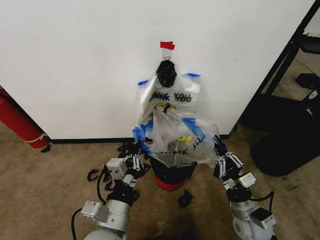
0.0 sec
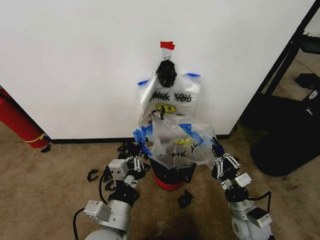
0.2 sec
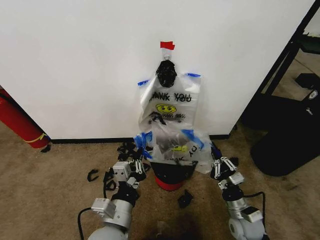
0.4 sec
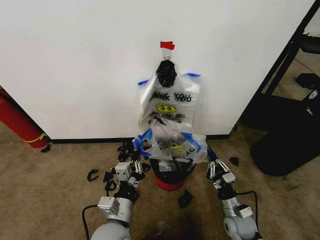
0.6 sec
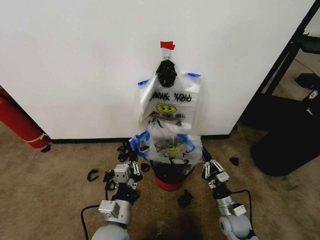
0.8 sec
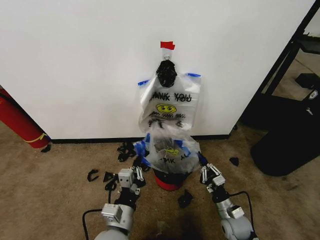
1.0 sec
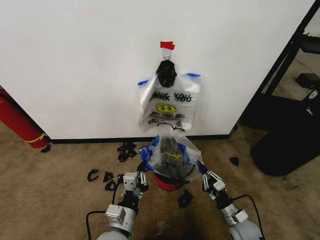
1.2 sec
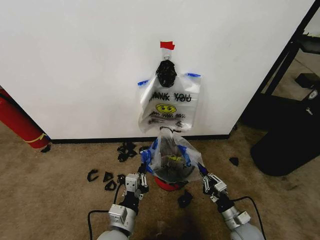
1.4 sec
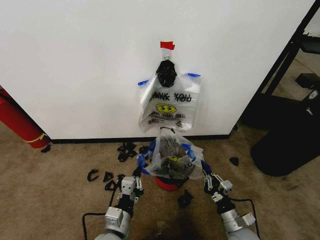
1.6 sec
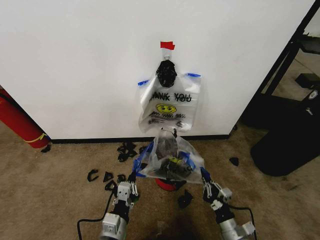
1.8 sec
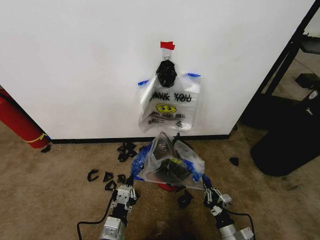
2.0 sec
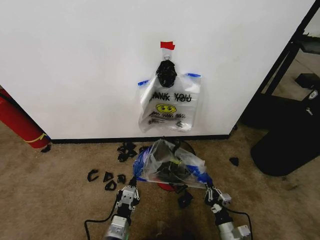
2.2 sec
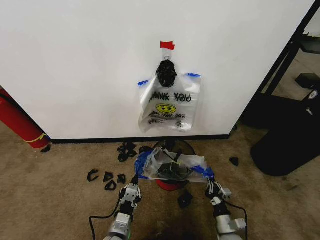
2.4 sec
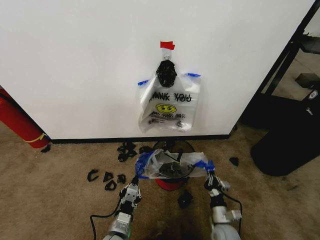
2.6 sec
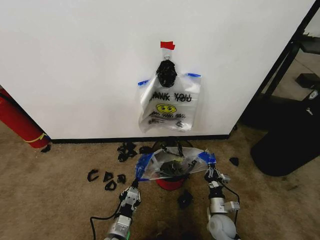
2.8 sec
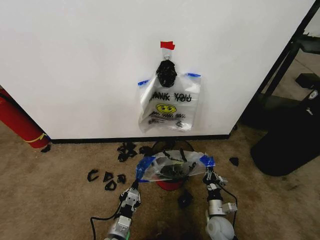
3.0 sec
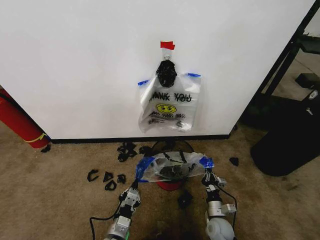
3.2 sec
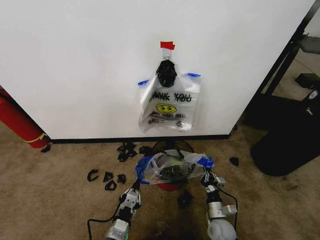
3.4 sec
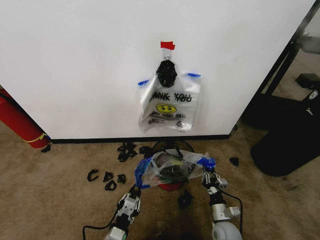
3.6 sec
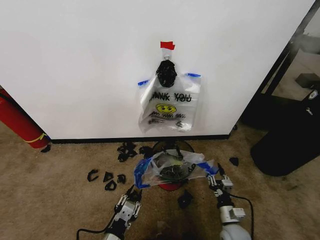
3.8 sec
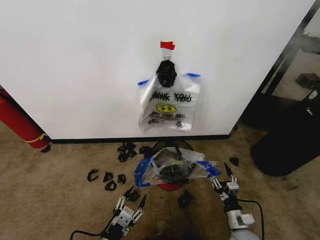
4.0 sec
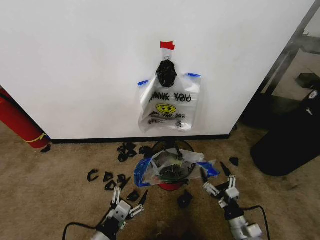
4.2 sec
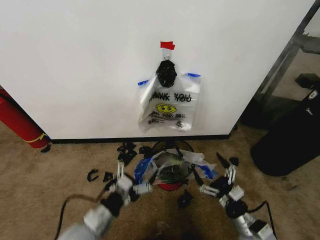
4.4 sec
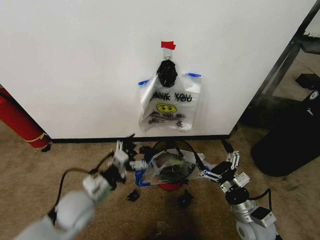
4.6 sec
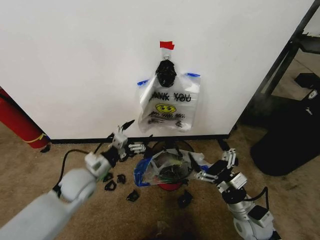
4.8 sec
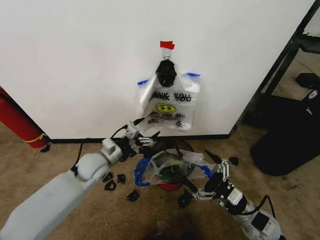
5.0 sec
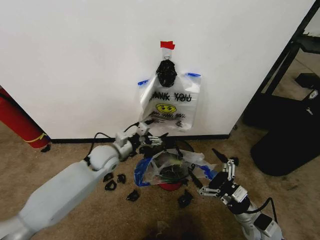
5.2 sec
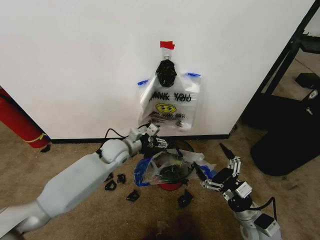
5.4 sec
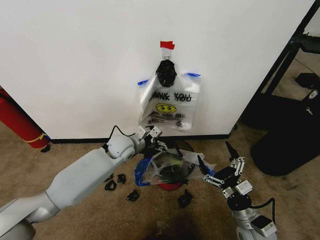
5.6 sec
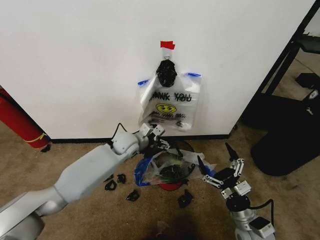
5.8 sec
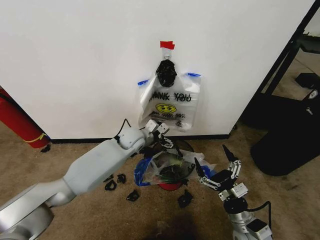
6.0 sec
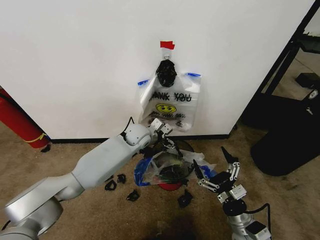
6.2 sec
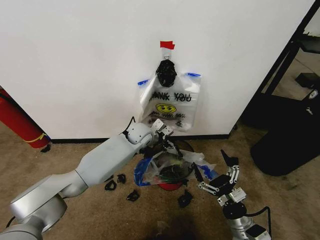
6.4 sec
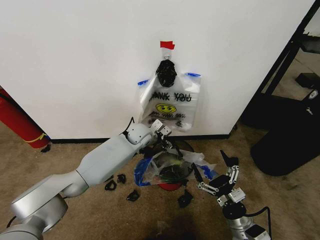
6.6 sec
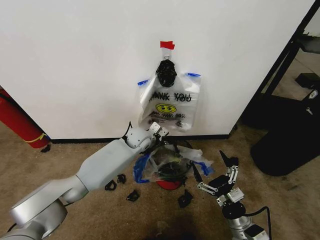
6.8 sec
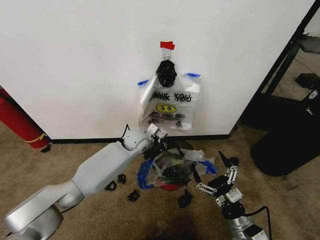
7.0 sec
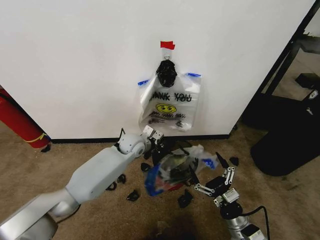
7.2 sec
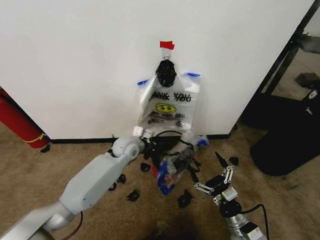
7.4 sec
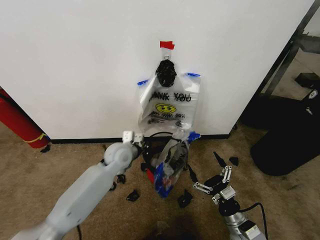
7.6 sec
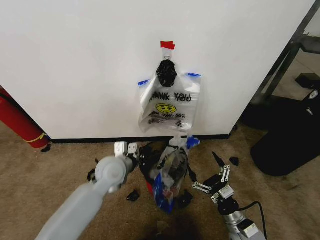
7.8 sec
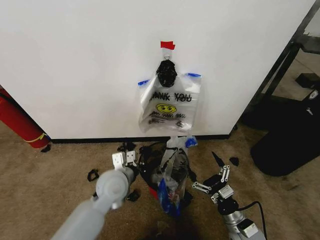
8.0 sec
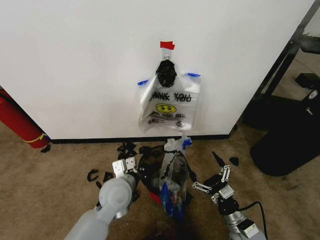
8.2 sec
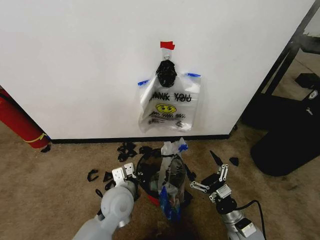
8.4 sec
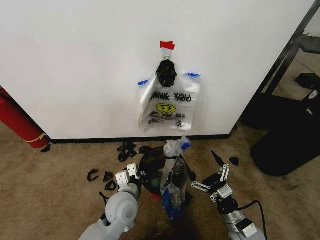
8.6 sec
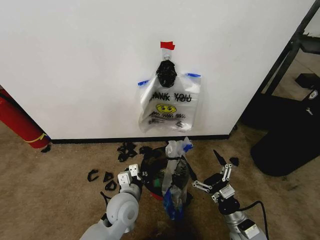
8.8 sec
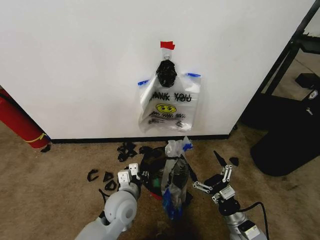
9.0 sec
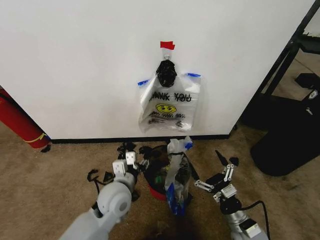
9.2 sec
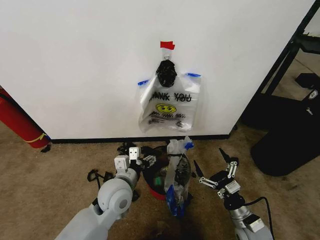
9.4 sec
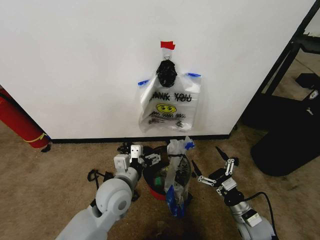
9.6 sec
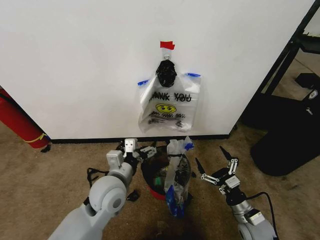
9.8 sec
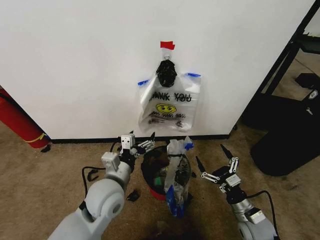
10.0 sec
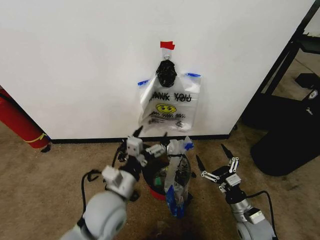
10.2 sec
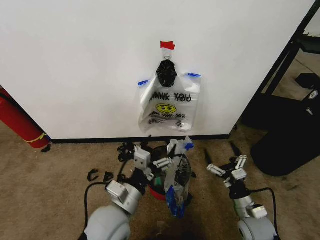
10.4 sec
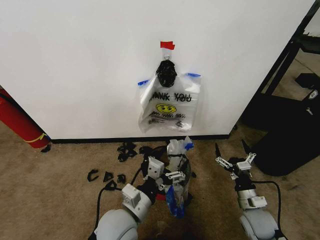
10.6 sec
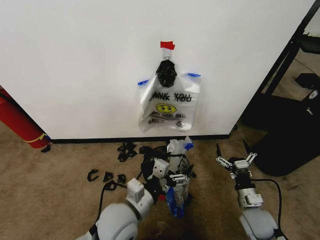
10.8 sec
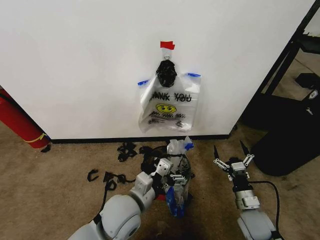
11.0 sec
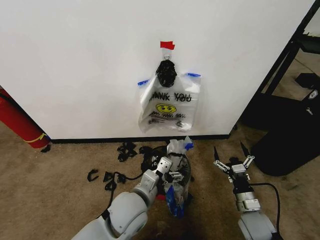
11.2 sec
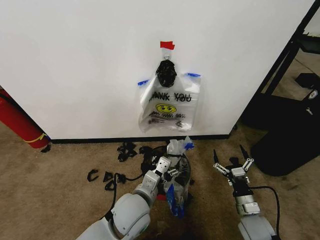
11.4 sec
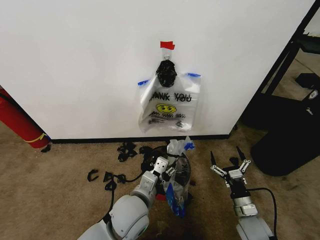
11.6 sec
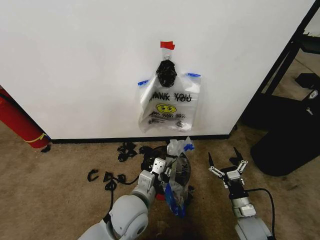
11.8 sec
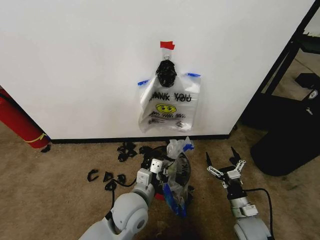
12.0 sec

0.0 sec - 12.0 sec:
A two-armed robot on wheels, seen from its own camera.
Task of the whole recording: Pick up the garbage bag from the wall and place it over the trash bin.
0.0 sec - 1.6 sec: The grippers both shift downward by approximately 10 cm.
1.6 sec - 3.0 sec: The right gripper travels downward and forward by roughly 10 cm; the left gripper shifts roughly 10 cm downward.
3.0 sec - 4.4 sec: The right gripper heads upward, backward and to the right, covering about 15 cm, and opens up; the left gripper shifts approximately 15 cm upward and to the left, and opens.
4.4 sec - 6.0 sec: The left gripper travels forward by some 35 cm.
6.0 sec - 7.6 sec: The left gripper heads backward, covering about 10 cm, and closes.
7.6 sec - 9.0 sec: The left gripper goes some 15 cm backward, and opens its fingers.
9.0 sec - 10.4 sec: The left gripper goes some 10 cm backward and upward, and opens up.
10.4 sec - 12.0 sec: The left gripper moves about 5 cm, and closes up.

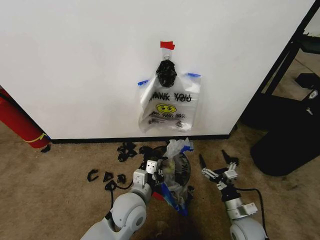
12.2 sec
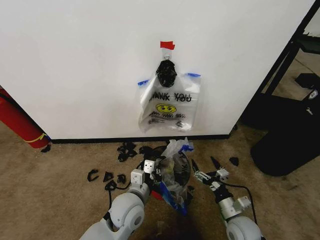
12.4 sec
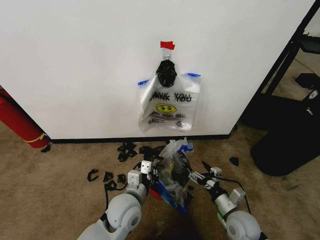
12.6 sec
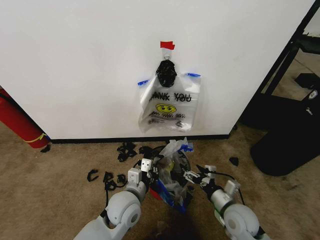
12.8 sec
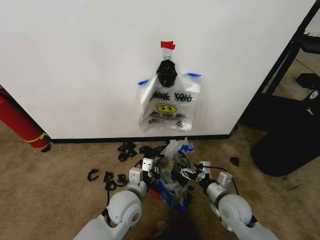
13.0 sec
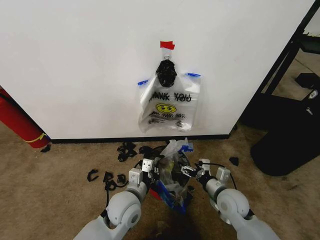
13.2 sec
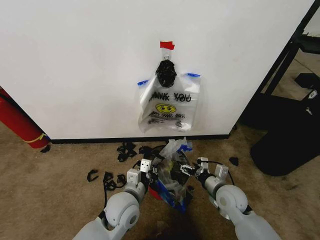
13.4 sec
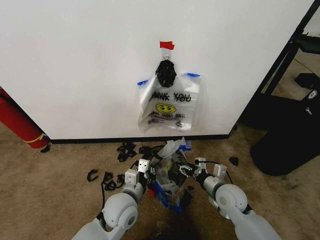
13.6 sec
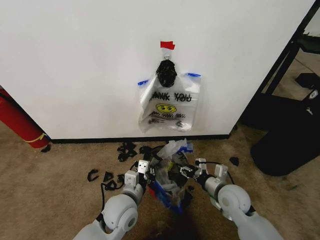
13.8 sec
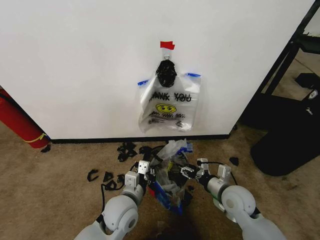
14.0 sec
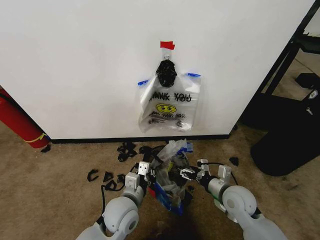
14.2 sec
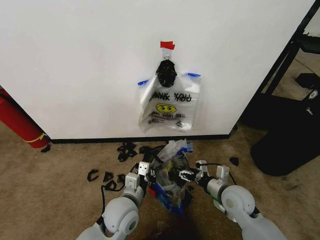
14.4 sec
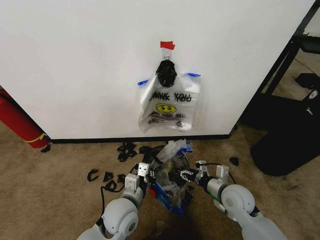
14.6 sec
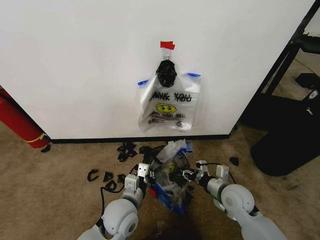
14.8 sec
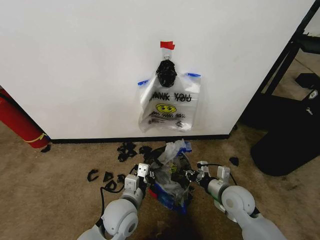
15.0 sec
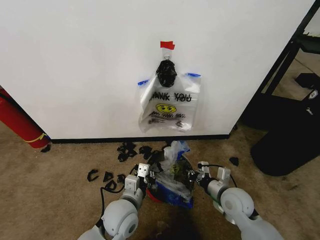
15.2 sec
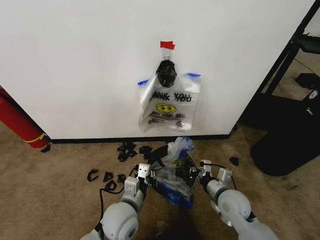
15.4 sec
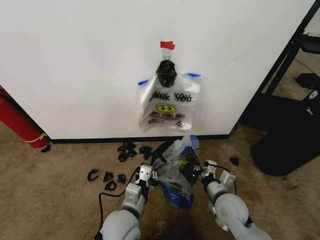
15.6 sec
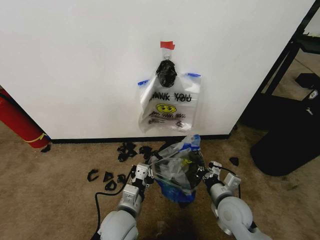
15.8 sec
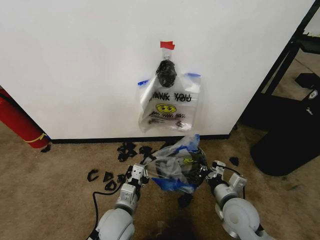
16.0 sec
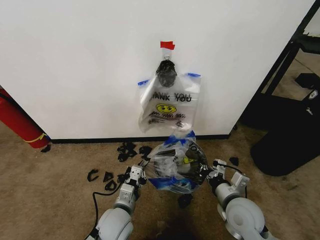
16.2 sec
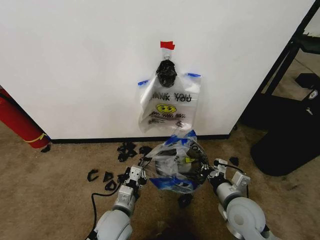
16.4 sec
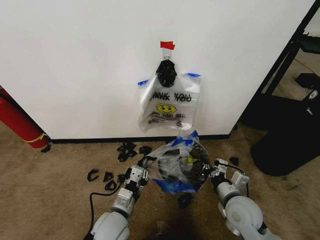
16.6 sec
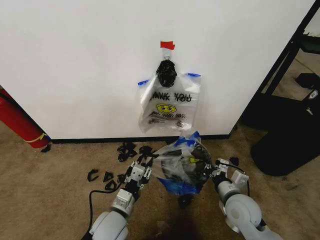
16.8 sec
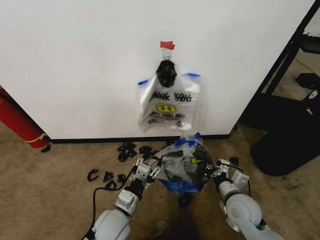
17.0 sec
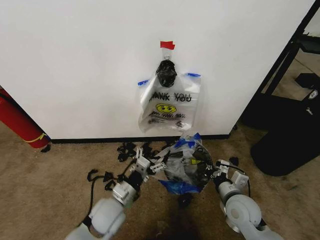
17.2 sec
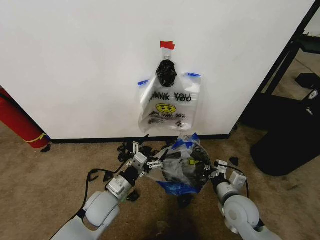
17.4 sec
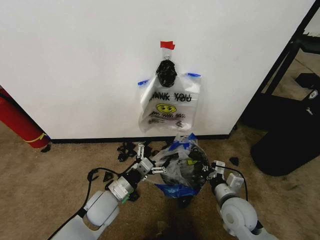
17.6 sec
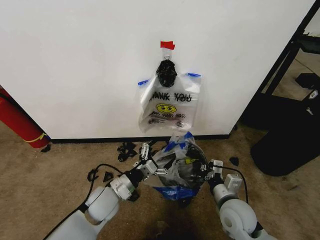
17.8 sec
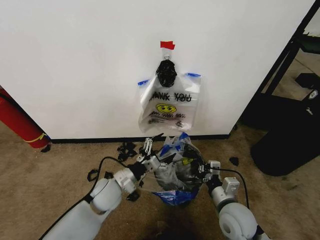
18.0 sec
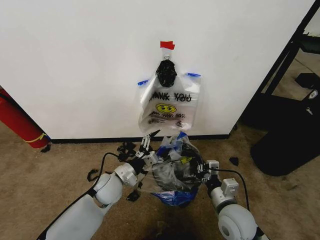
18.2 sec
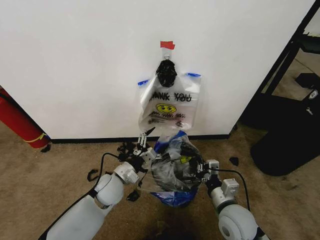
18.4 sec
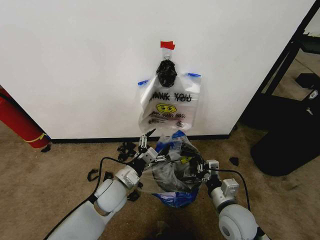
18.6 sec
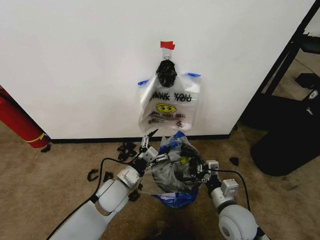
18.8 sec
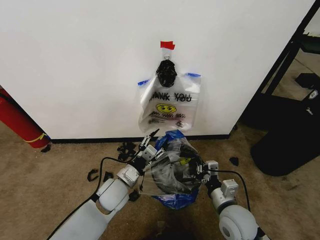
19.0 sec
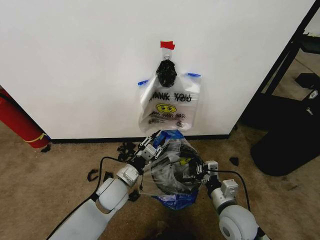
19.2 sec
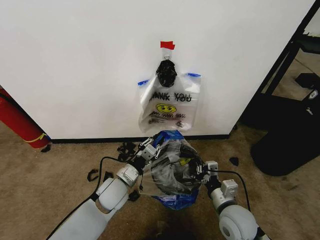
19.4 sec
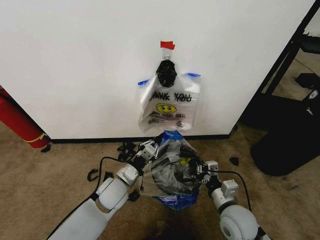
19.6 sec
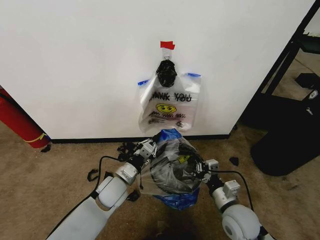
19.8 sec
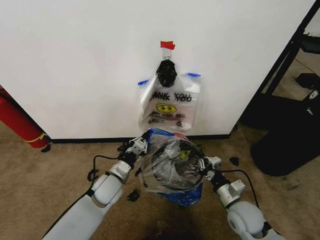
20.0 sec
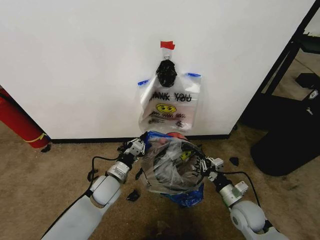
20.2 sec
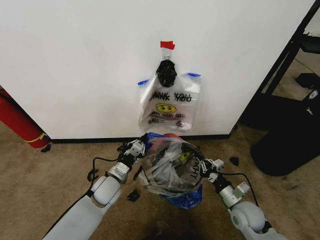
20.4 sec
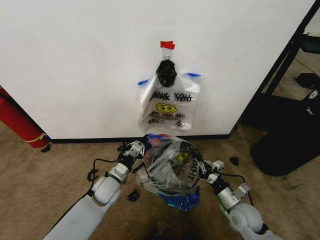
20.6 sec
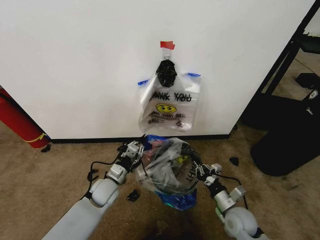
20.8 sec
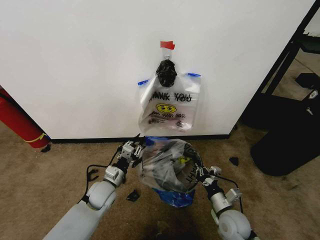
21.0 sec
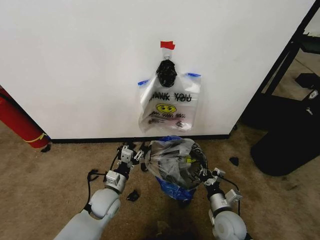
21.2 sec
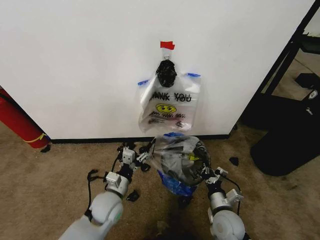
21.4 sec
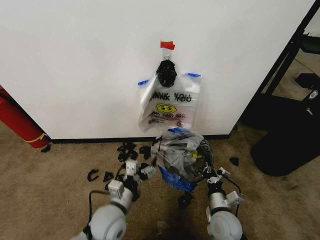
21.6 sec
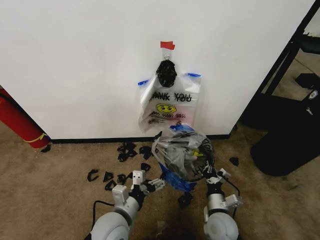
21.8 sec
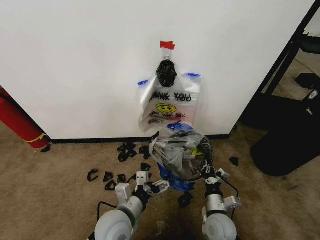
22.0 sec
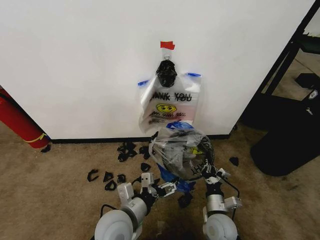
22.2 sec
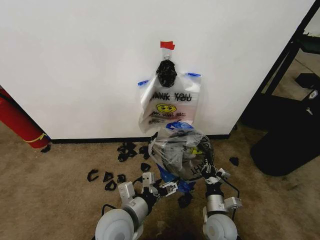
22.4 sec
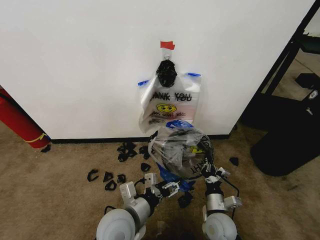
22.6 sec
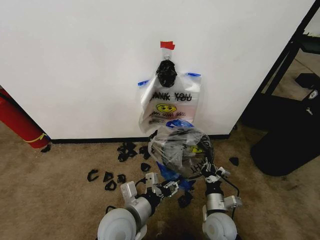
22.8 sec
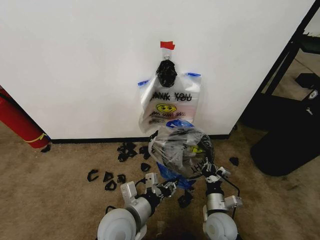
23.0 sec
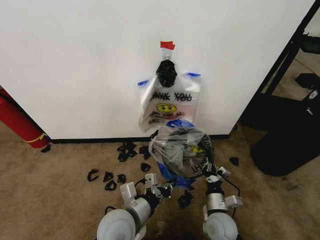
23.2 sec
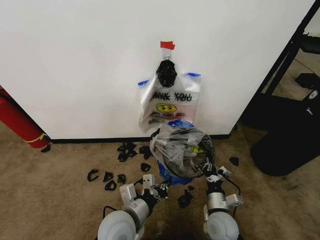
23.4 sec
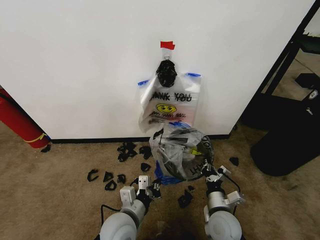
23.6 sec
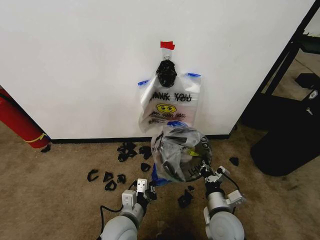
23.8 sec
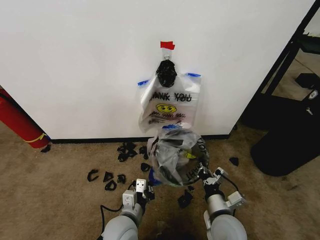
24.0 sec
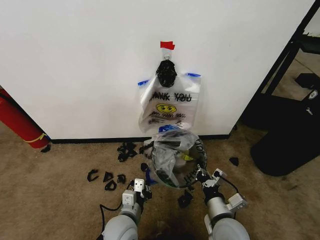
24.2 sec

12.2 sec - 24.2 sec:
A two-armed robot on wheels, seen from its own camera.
Task of the whole recording: Pick up the garbage bag from the wall and place it over the trash bin.
12.2 sec - 13.8 sec: The right gripper shifts some 10 cm forward and upward, and closes.
13.8 sec - 15.2 sec: The right gripper closes its fingers.
16.6 sec - 18.2 sec: The left gripper heads forward, covering roughly 10 cm, and opens.
18.2 sec - 19.8 sec: The left gripper closes up.
19.8 sec - 21.2 sec: The right gripper heads downward, covering roughly 10 cm. The left gripper moves downward, about 5 cm, and opens.
21.2 sec - 22.6 sec: The left gripper heads upward, backward and to the right, covering some 20 cm.
22.6 sec - 24.2 sec: The right gripper is displaced upward by approximately 10 cm. Meanwhile the left gripper heads downward, covering roughly 10 cm, and closes.
